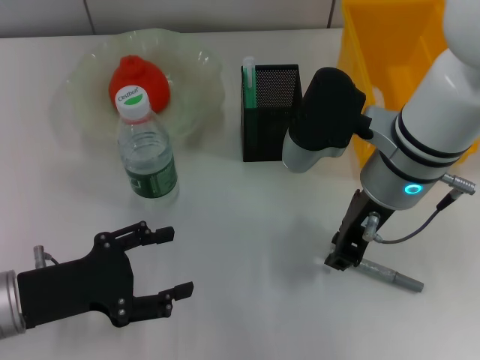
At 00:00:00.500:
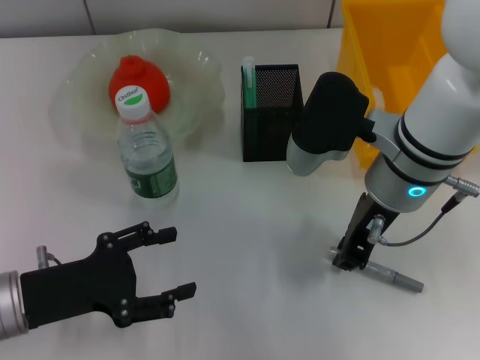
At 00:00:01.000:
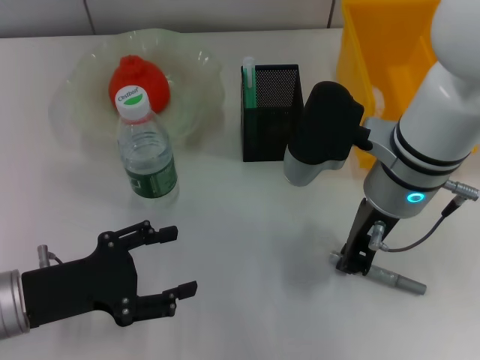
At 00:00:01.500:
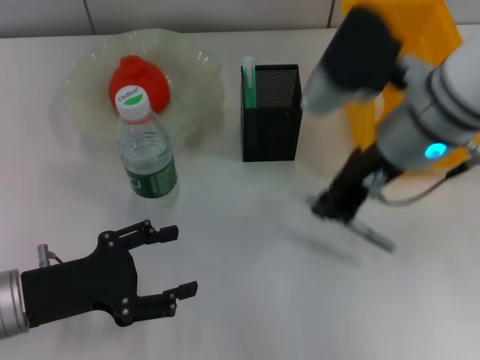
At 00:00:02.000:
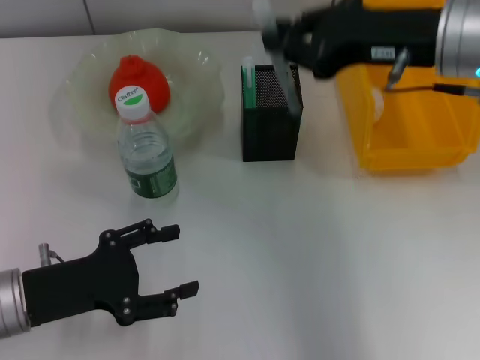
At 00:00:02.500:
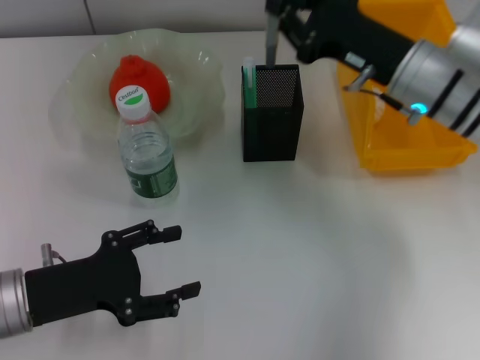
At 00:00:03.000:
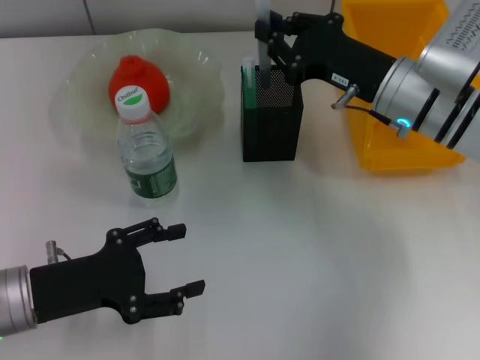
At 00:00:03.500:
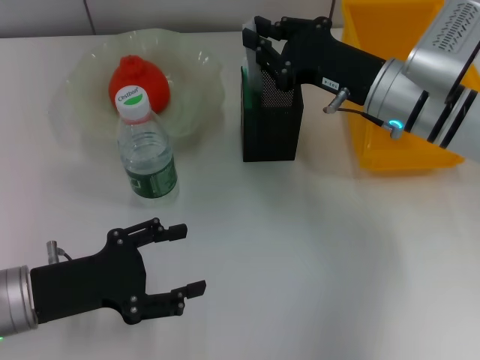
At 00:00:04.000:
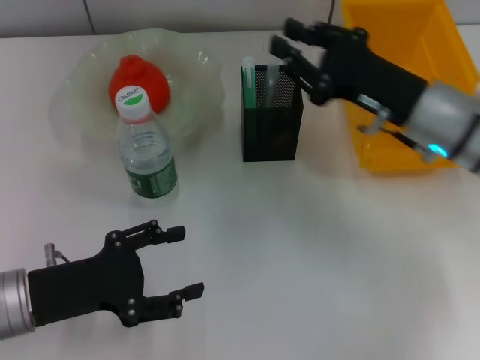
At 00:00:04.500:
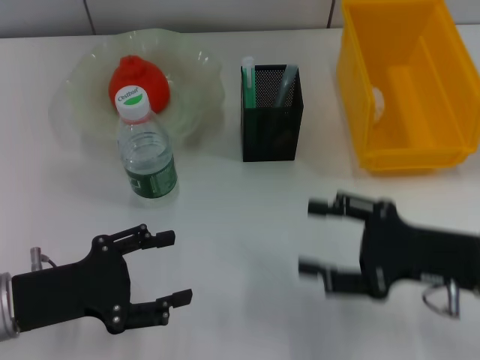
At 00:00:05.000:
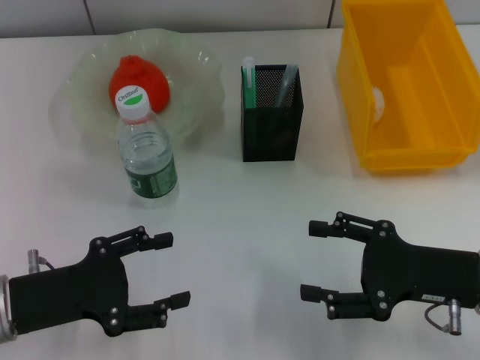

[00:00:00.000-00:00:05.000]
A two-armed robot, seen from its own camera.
Step, 00:00:01.000 to 00:00:03.500: Place the gray glue into the pen holder with the right hand.
00:00:00.000 to 00:00:02.500: The right gripper moves to the right and forward, approximately 10 cm, and goes upward and returns, some 5 cm each way.
00:00:02.500 to 00:00:05.000: The right gripper is displaced backward, to the right and downward by roughly 20 cm, and opens up.
